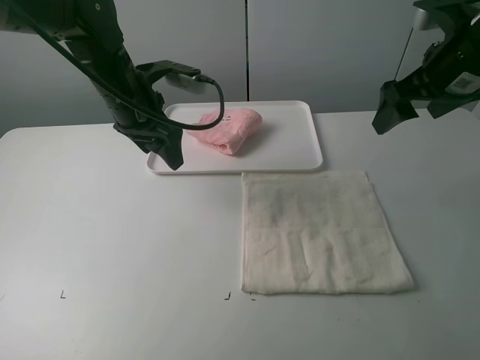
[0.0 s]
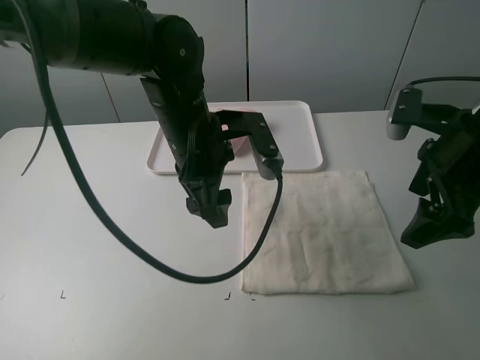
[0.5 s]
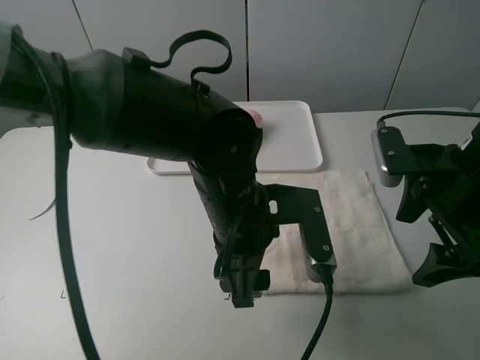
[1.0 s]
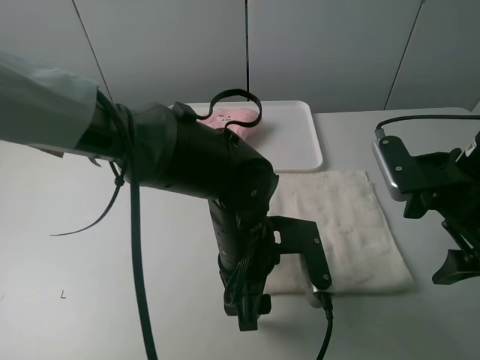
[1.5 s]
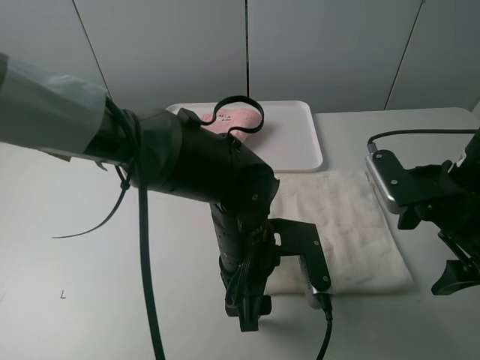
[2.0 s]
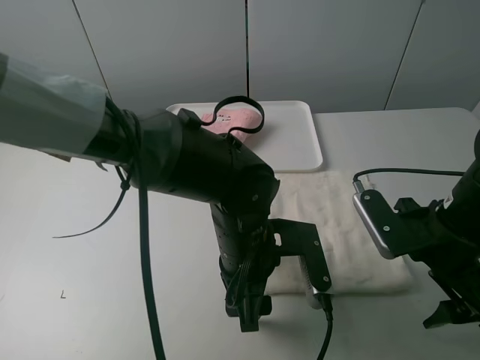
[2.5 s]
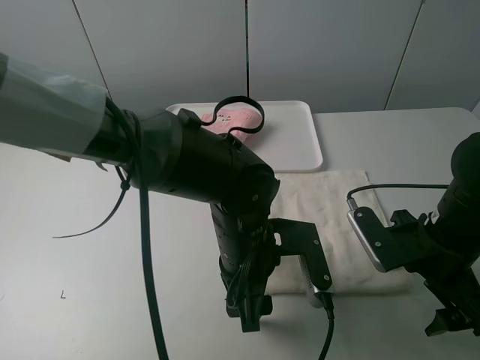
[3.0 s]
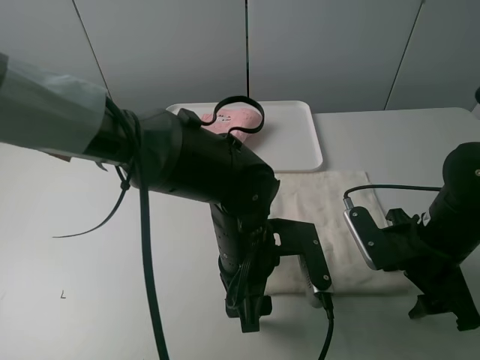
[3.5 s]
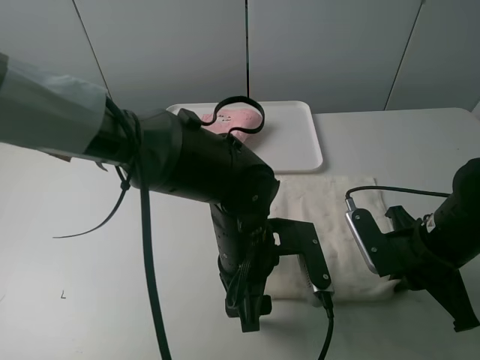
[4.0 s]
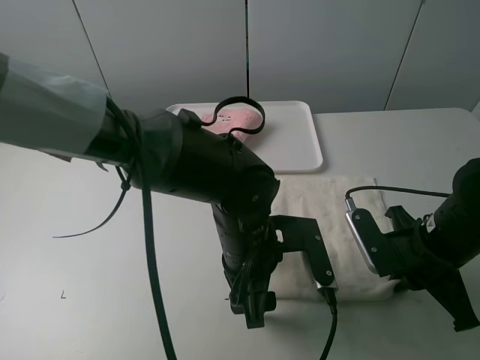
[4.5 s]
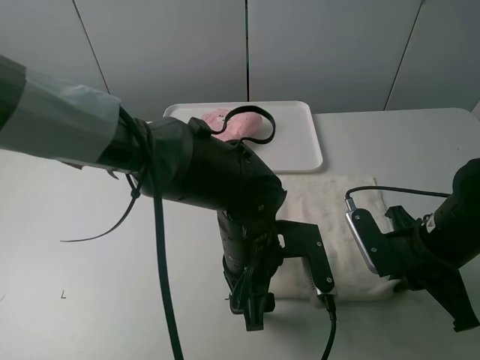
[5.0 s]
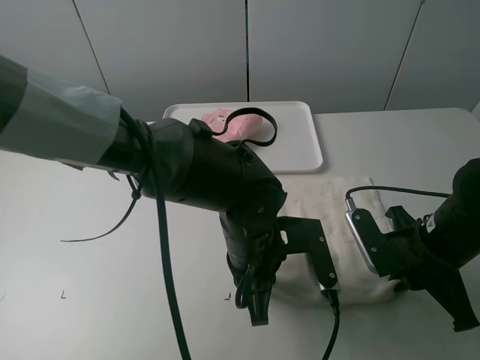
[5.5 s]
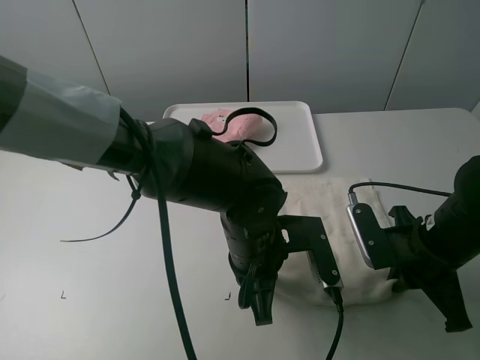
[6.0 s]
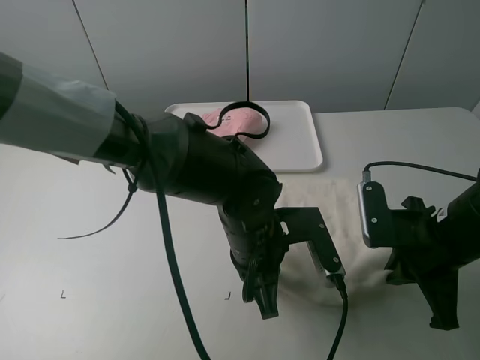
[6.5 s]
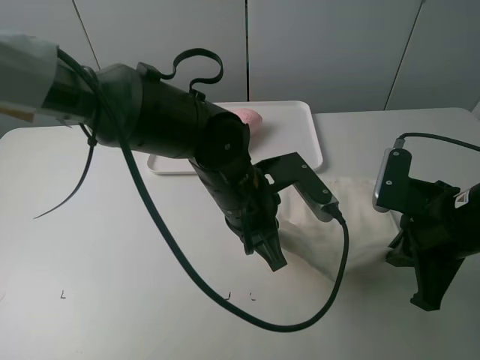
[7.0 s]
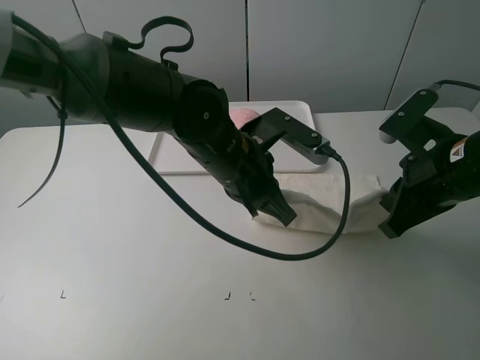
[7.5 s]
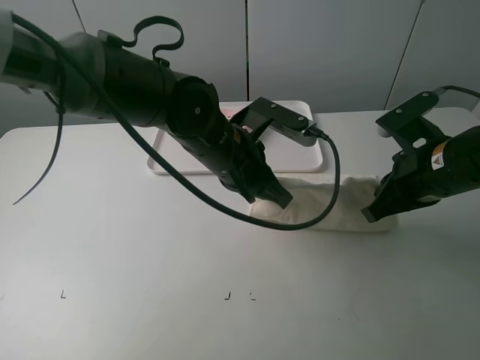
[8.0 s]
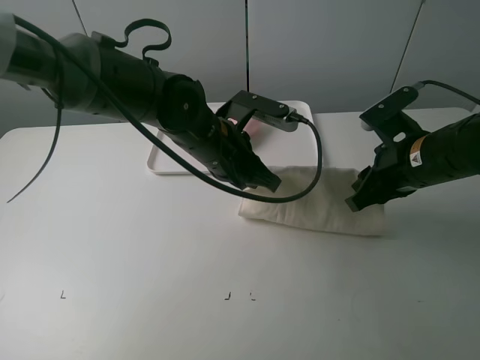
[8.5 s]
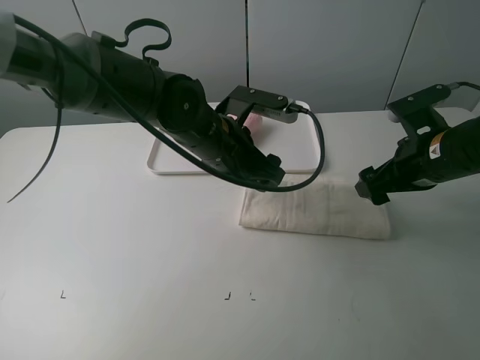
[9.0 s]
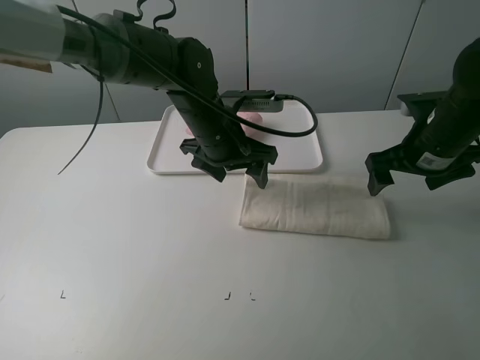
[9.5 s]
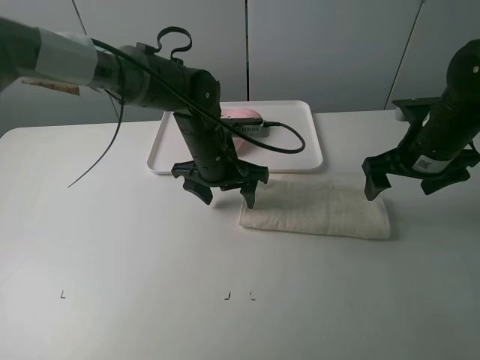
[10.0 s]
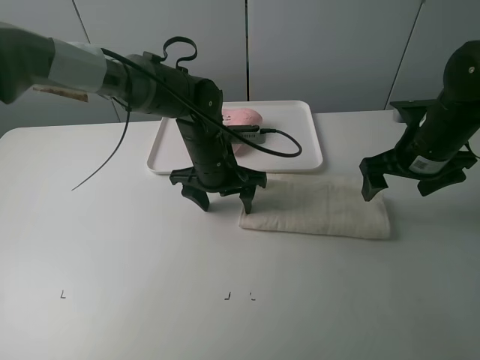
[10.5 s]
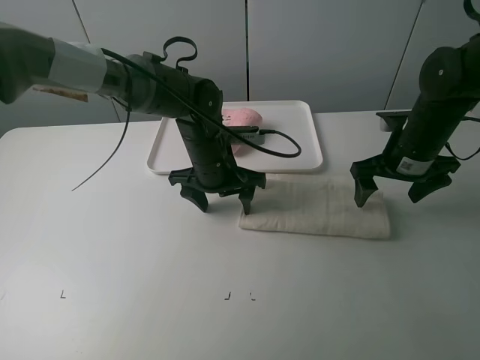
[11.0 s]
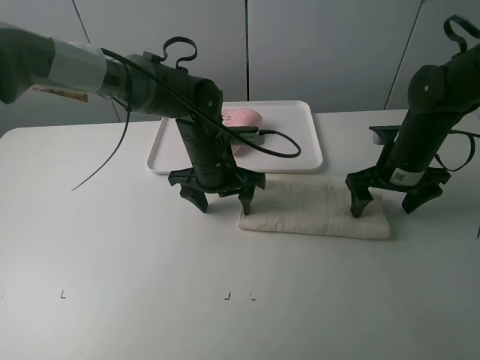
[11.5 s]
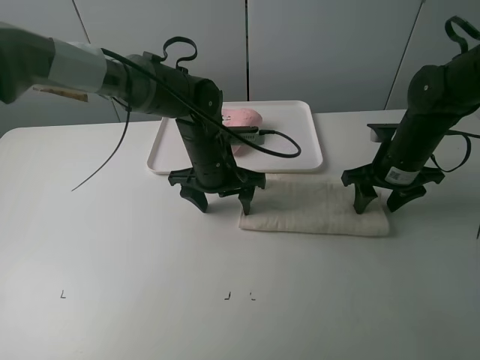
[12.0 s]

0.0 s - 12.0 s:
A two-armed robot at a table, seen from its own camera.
Task of the whole recording: fold one of the towels by two grippers and place it on the tray,then fold another towel by two grippers and place it on the folded towel.
Step, 0.0 s - 5.5 s: Grasp the white towel with the left gripper.
Step, 6.0 s - 8.5 s: Fold the white towel upwards with the left gripper.
Step, 9.0 s - 10.5 s: Press the white towel with the left gripper.
0.0 s - 2.0 s: The left gripper shifts roughly 25 cm backward, to the right and downward; the right gripper is displaced downward and backward by roughly 15 cm.
2.0 s - 4.0 s: The right gripper is displaced downward by approximately 5 cm, and closes up.
4.0 s - 6.0 s: The left gripper closes its fingers.
6.0 s - 8.0 s: The left gripper goes approximately 10 cm forward and upward. Meanwhile the right gripper shifts approximately 10 cm upward and forward.
8.0 s - 10.0 s: Both grippers travel together forward, roughly 5 cm. The left gripper opens its fingers. Meanwhile the right gripper opens.
10.0 s - 12.0 s: The right gripper goes about 5 cm downward, and closes its fingers.

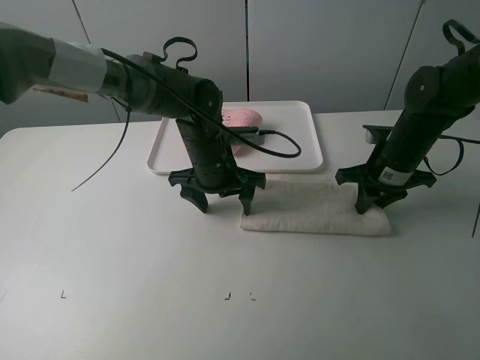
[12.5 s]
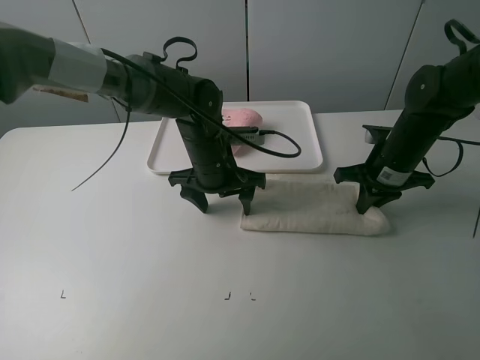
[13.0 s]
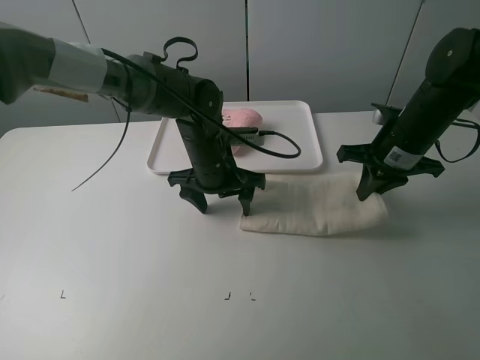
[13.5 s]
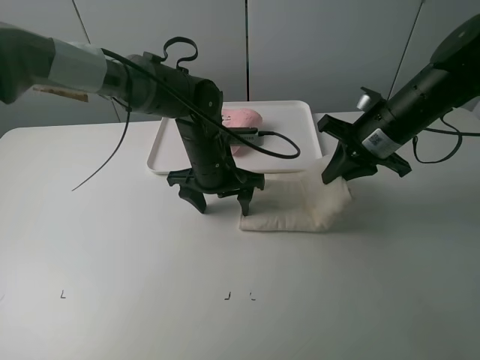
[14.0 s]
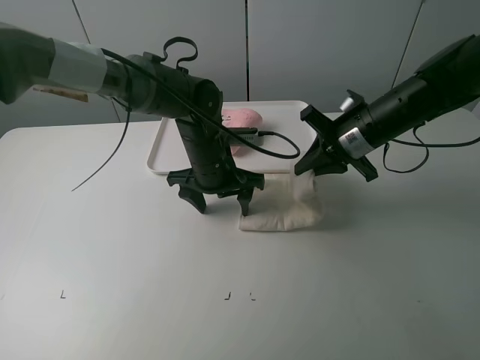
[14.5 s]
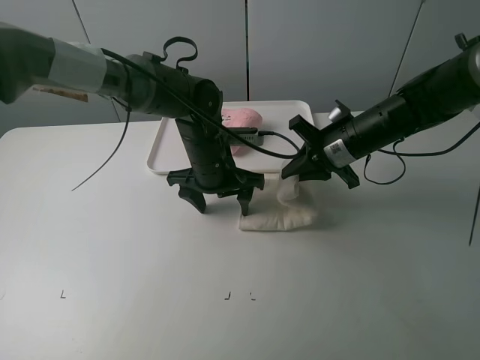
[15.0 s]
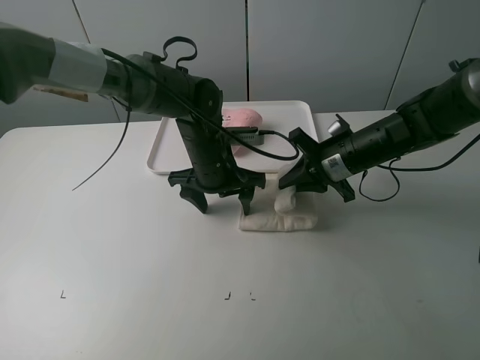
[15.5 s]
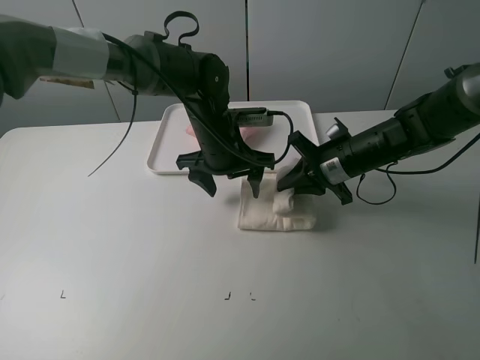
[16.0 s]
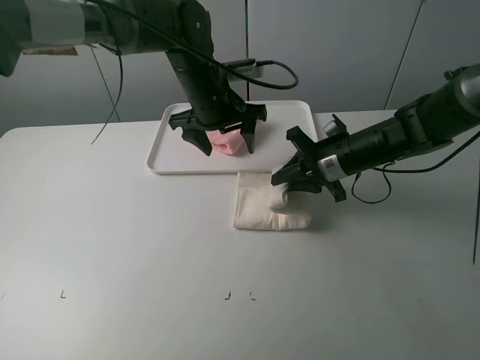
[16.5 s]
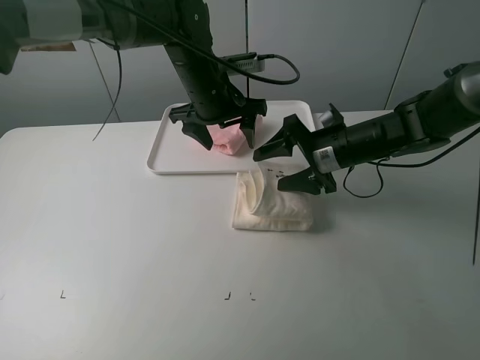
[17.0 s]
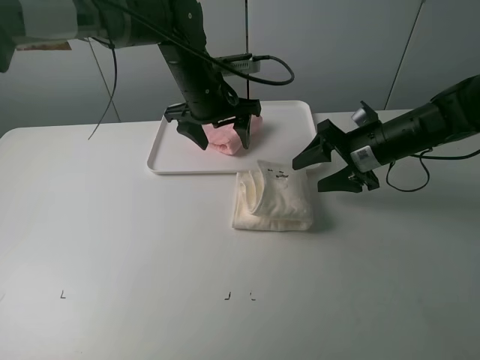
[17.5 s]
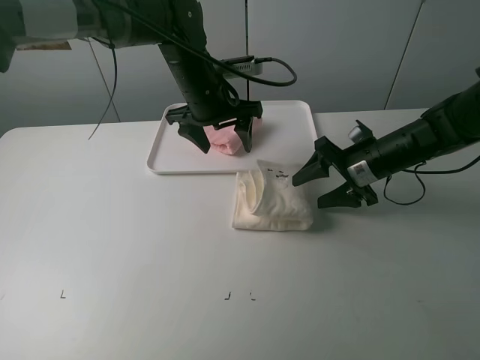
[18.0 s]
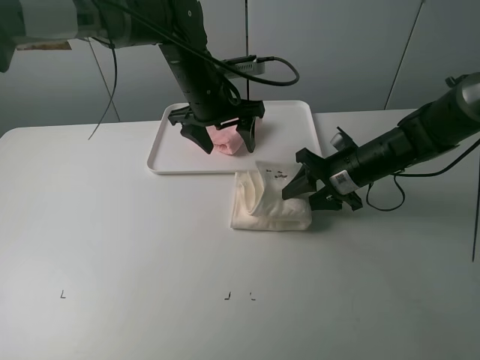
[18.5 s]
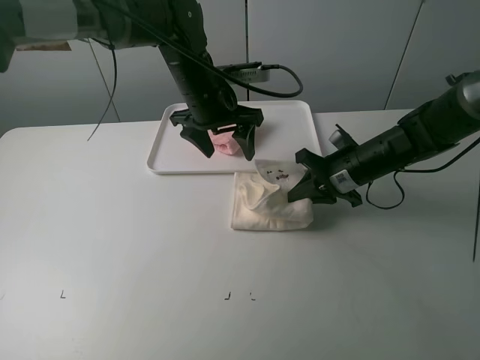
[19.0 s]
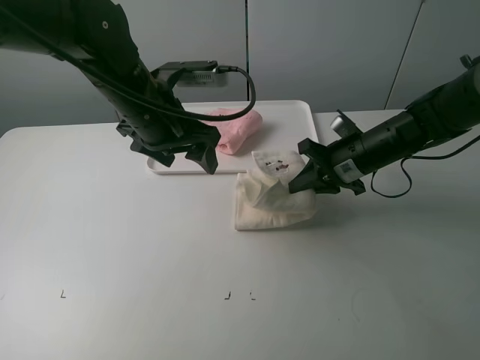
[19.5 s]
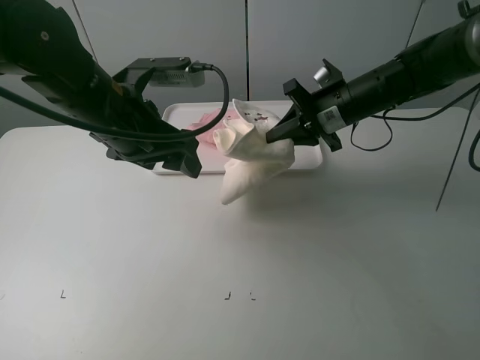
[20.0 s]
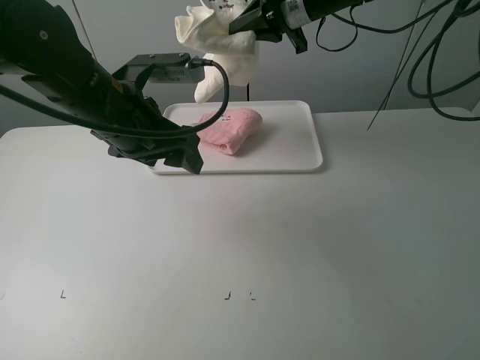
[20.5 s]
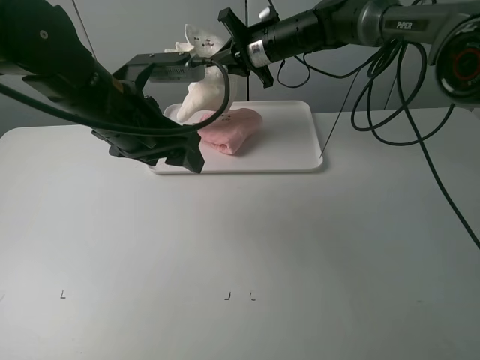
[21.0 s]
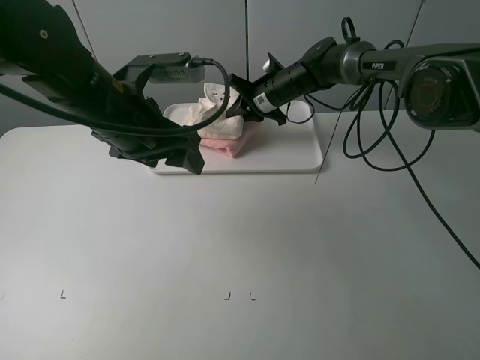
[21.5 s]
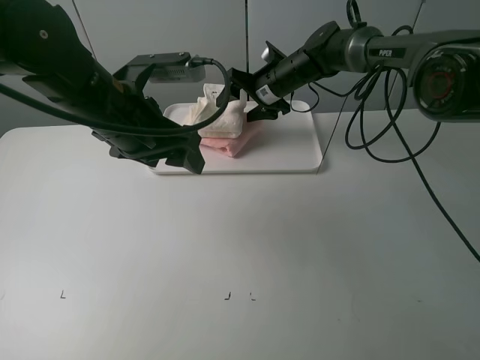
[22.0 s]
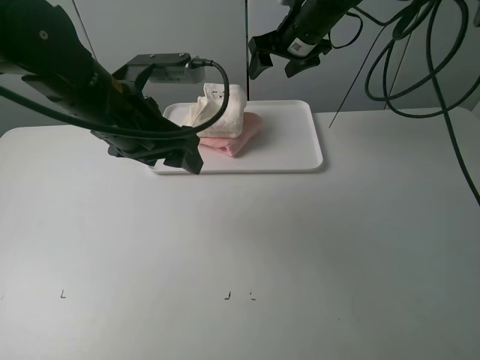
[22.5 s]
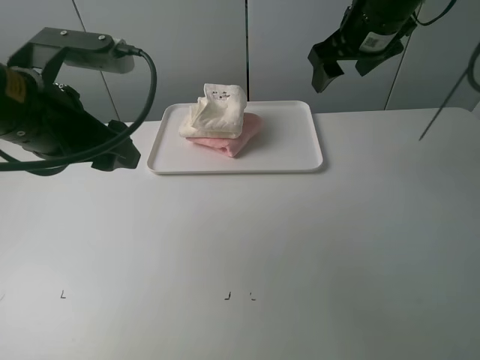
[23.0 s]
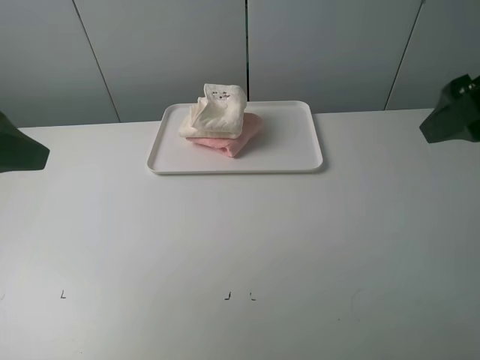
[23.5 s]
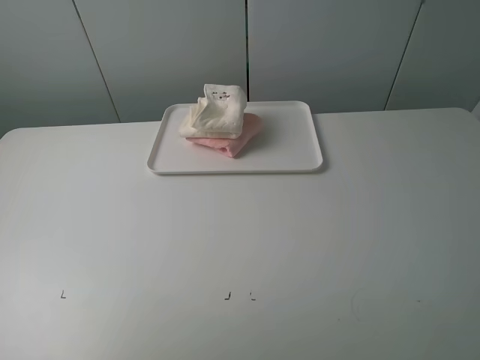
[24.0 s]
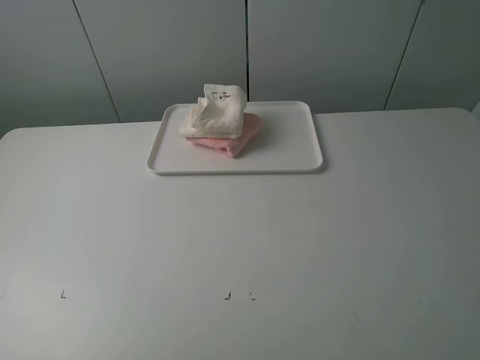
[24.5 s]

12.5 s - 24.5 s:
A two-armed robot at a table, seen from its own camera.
Task of the whole recording: fold one of the towels by two grippers and place it on the tray,then fold another towel by two grippers and place it on the folded towel.
Step, 13.0 s - 16.5 s: Fold the white towel from right to left with right gripper.
Step, 17.0 s - 18.5 s: Grasp the white towel with the right gripper.
Step, 19.0 s - 22.0 s: Place the white towel on the pink towel with the right gripper.
12.5 s - 14.5 s: The right gripper travels to the left and upward by some 10 cm.
14.5 s - 16.5 s: The left gripper heads upward and forward, covering some 10 cm.
16.5 s - 18.5 s: The right gripper opens, then closes again.
18.5 s - 20.5 s: The left gripper is displaced backward and to the left by roughly 15 cm. Meanwhile the right gripper shifts some 25 cm upward, forward and to the left.
20.5 s - 22.5 s: The right gripper goes downward and returns, approximately 15 cm each way, and opens its fingers.
22.5 s - 24.5 s: The right gripper travels backward by some 50 cm, while the left gripper heads backward and to the left, covering approximately 35 cm.
